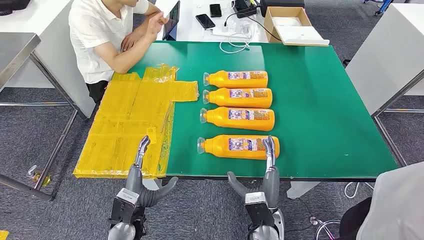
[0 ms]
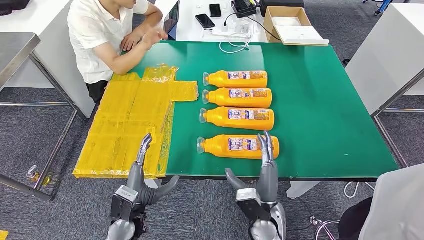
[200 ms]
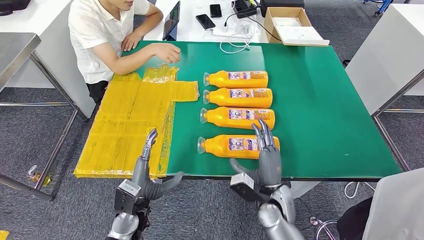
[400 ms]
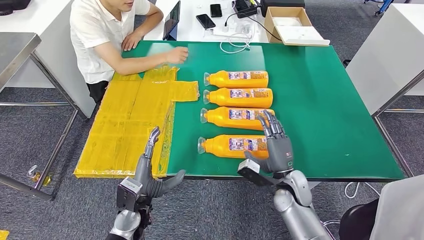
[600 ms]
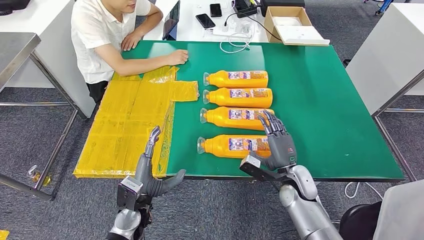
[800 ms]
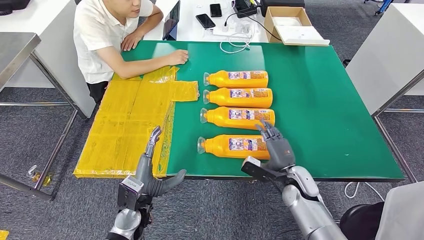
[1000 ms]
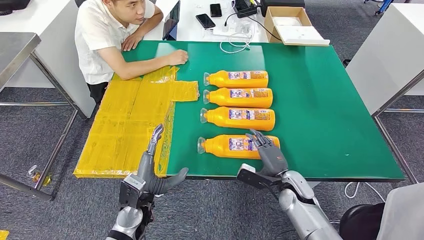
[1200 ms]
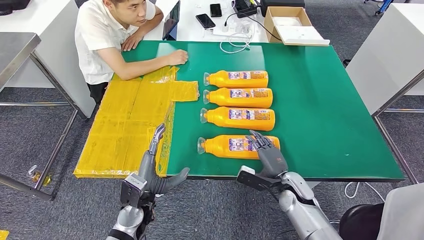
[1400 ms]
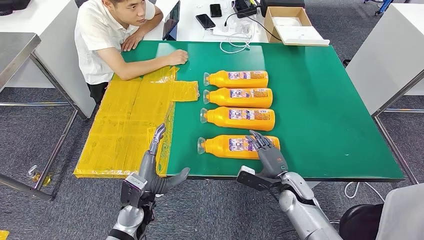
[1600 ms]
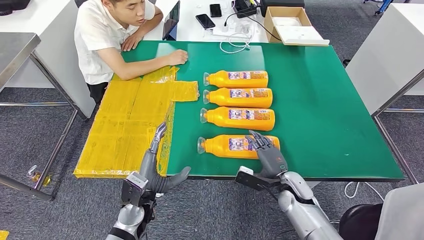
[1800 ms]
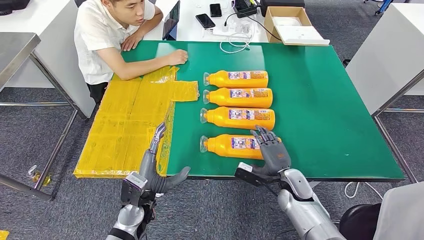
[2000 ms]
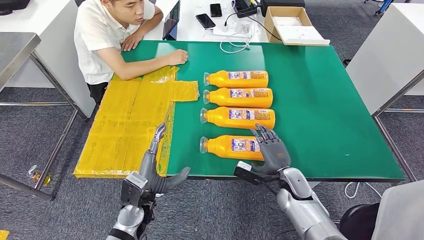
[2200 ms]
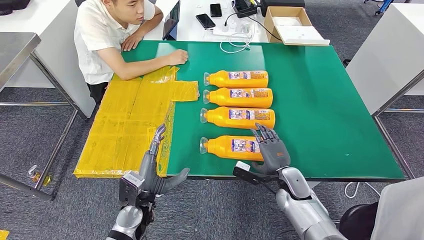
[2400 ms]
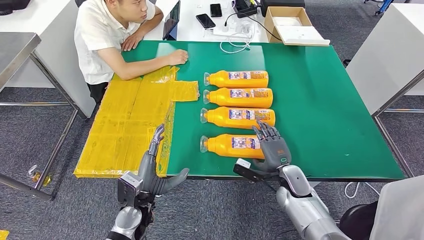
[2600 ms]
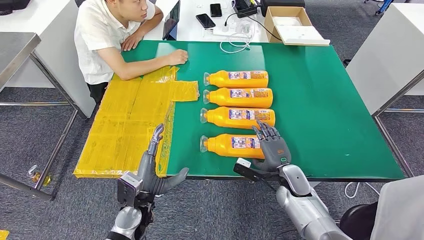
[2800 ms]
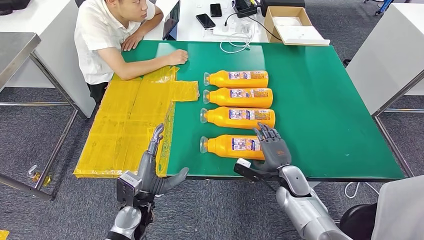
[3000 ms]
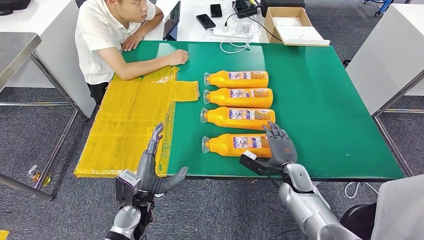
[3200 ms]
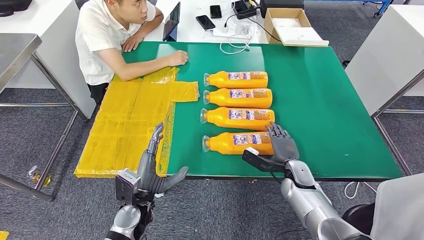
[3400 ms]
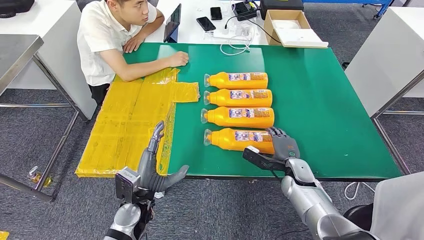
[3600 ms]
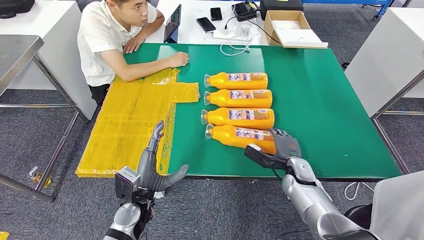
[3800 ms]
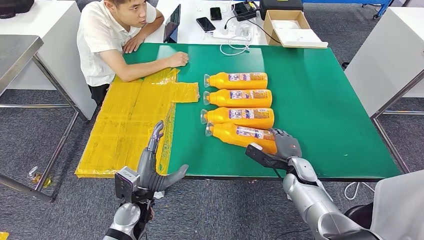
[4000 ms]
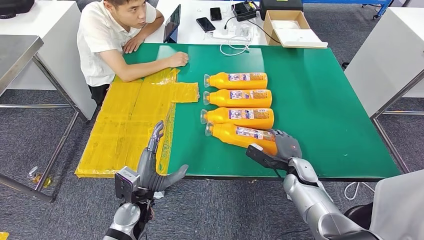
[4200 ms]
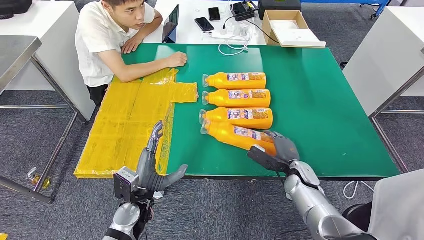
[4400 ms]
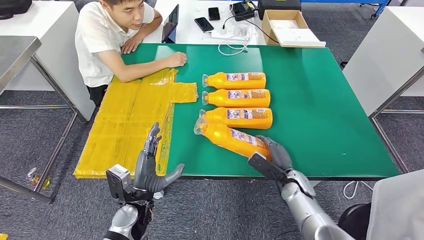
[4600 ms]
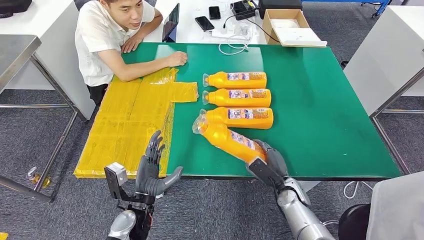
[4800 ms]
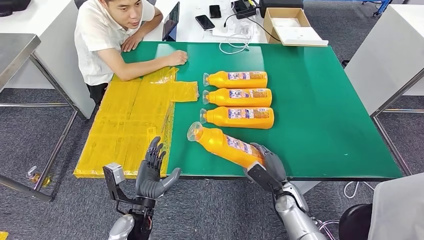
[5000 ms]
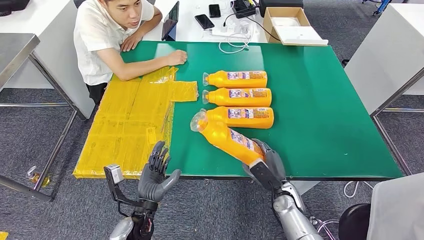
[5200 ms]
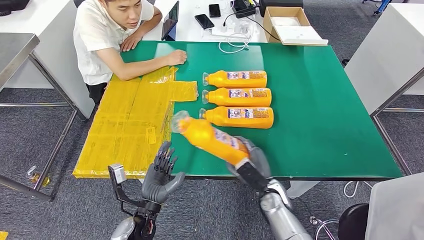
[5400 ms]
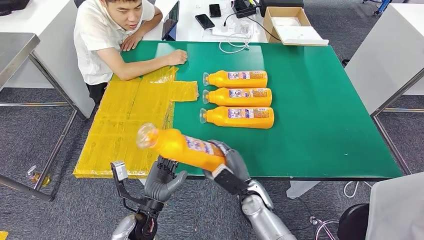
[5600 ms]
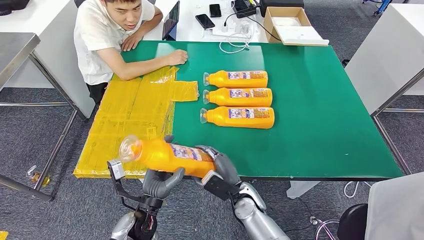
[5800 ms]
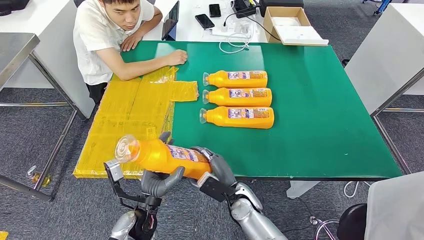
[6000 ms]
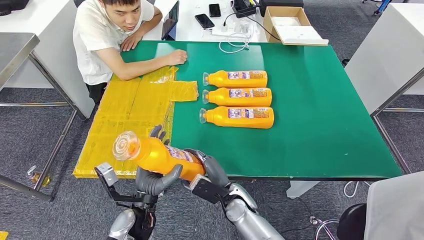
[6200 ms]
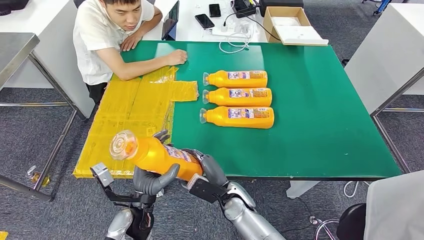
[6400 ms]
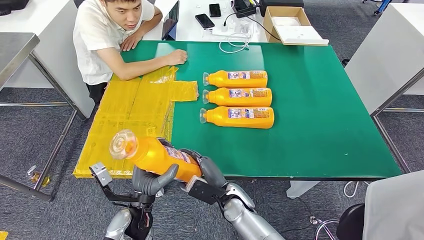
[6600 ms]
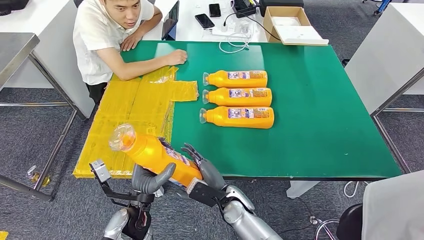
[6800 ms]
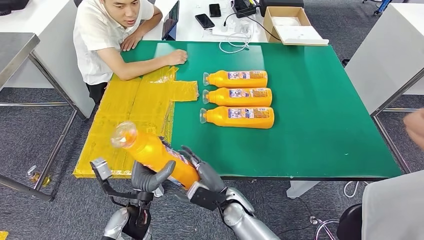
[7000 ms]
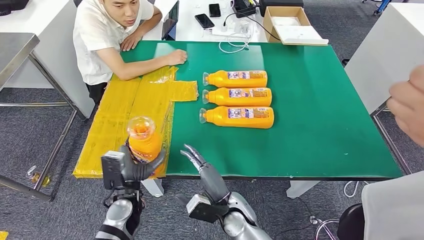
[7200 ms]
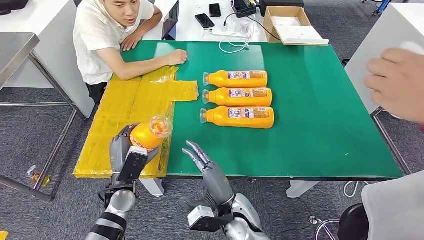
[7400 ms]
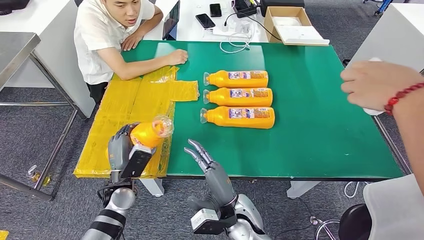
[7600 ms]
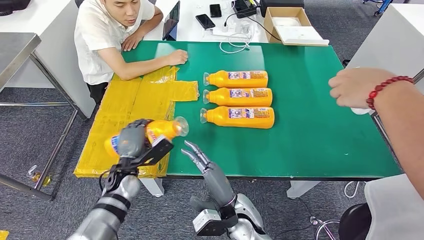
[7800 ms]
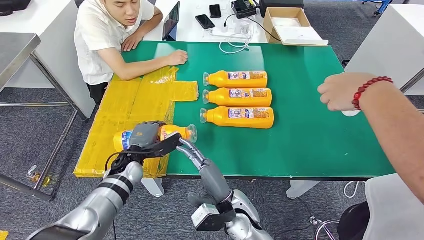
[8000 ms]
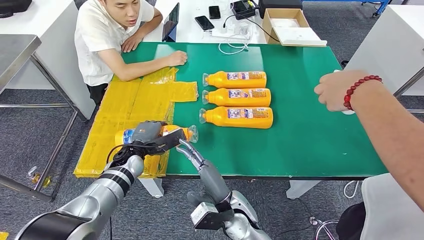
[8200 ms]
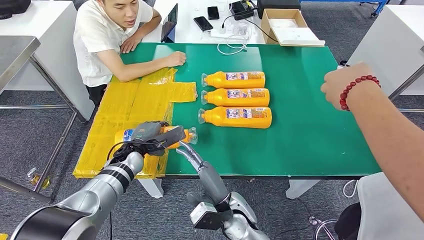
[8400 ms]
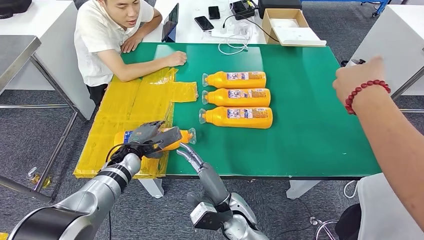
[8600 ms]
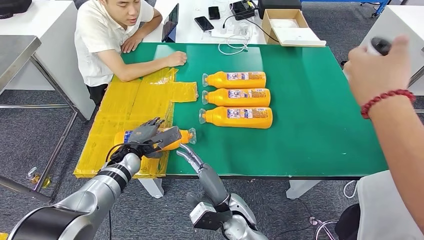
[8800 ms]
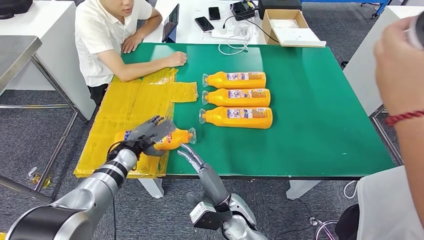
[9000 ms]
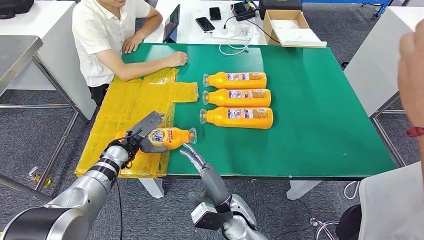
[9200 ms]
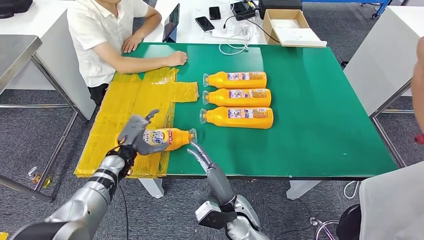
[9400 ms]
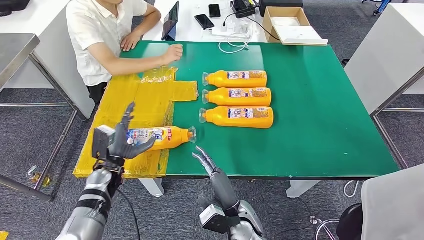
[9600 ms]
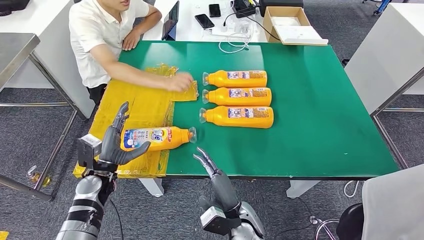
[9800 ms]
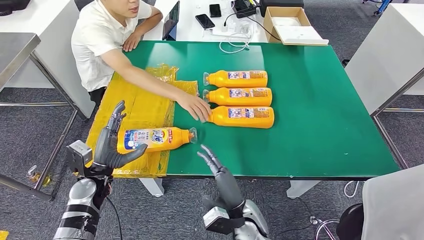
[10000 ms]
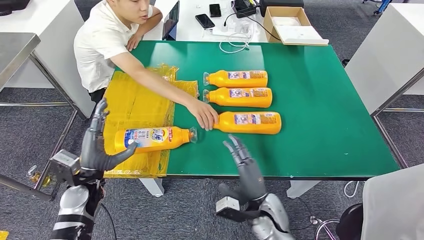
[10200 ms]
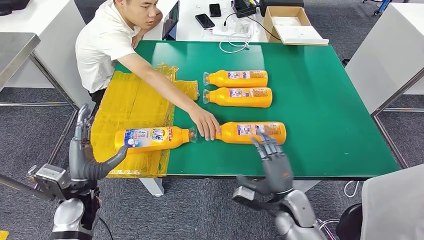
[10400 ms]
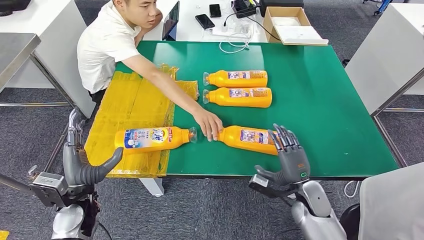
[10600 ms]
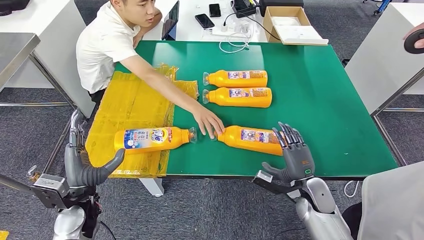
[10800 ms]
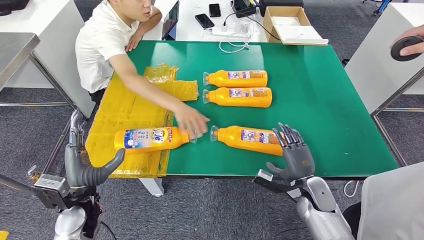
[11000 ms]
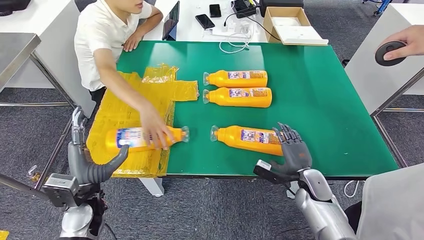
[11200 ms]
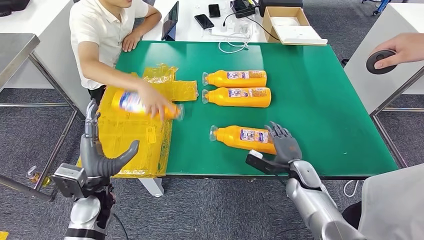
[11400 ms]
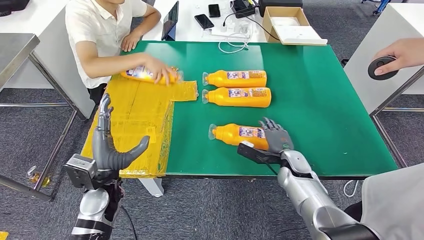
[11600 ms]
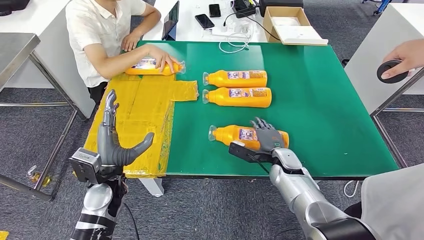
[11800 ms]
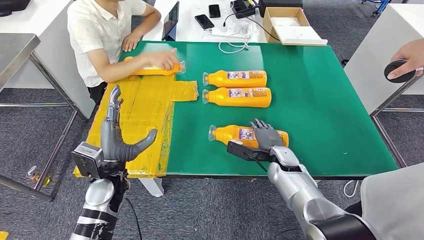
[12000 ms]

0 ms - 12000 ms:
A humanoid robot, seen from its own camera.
Step, 0 ms - 5000 ms: Take the fast-moving consumer goods bottle from the table.
Step, 5200 ms - 9800 ms: Flip the fast-moving consumer goods bottle to the front side.
6000 ms - 7600 ms: The right hand ends up approximately 5 cm from where it was. The left hand moves forward and to the left, about 10 cm.

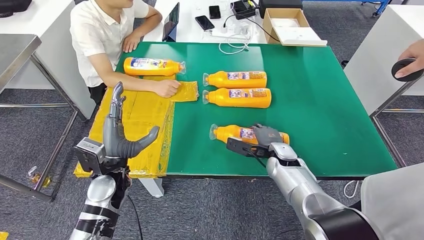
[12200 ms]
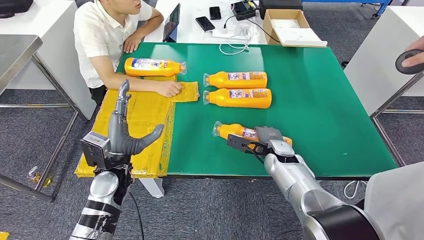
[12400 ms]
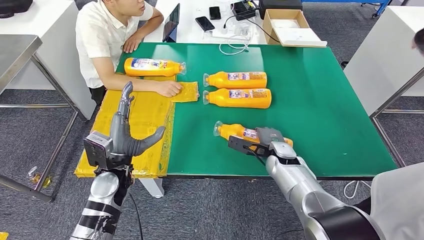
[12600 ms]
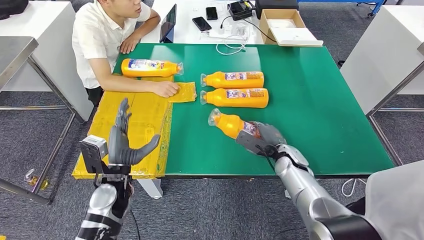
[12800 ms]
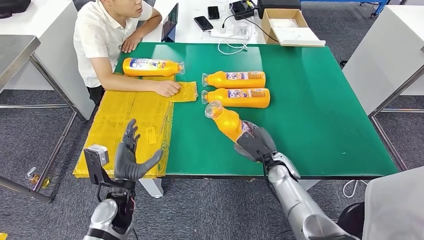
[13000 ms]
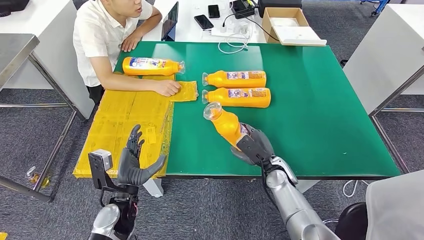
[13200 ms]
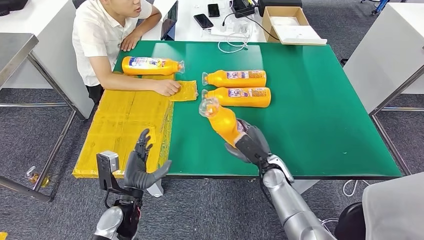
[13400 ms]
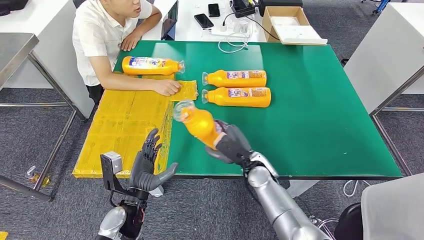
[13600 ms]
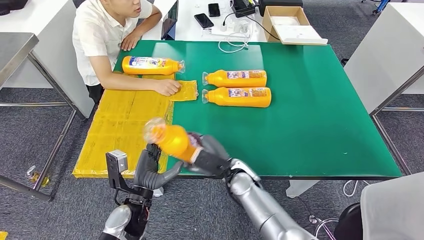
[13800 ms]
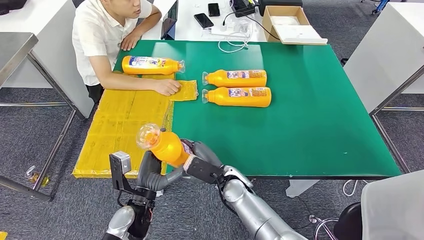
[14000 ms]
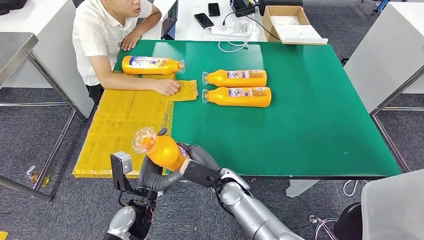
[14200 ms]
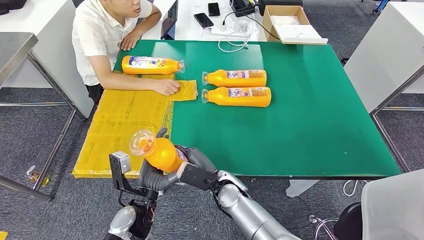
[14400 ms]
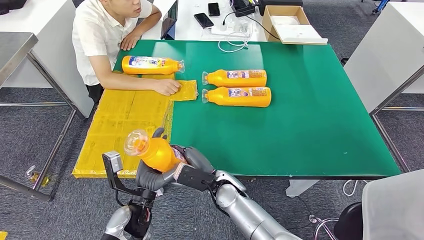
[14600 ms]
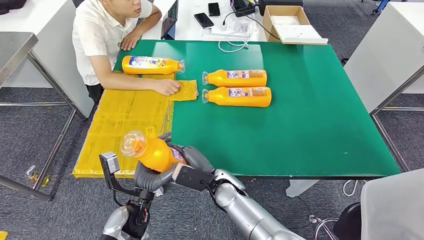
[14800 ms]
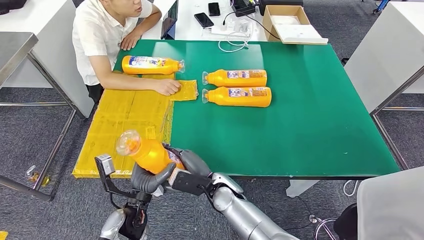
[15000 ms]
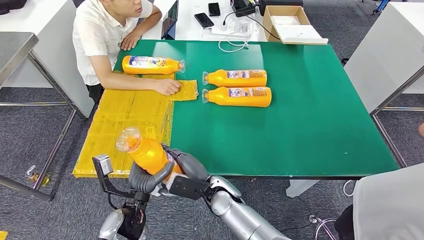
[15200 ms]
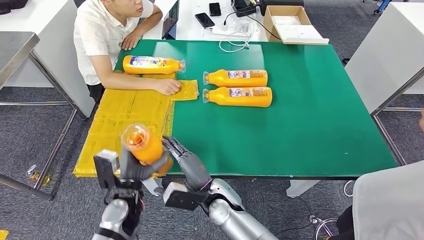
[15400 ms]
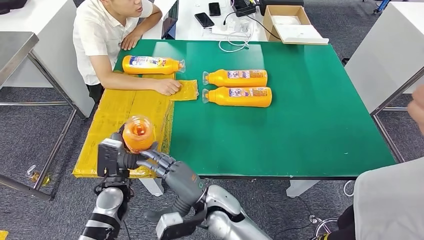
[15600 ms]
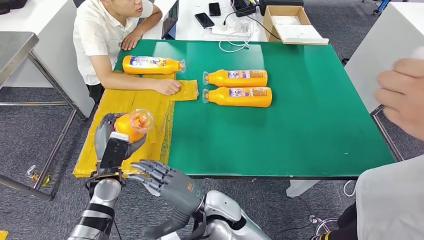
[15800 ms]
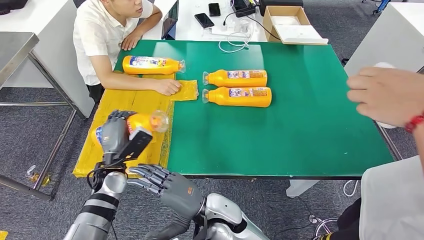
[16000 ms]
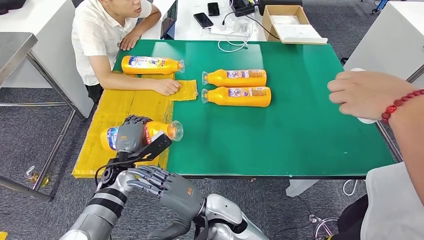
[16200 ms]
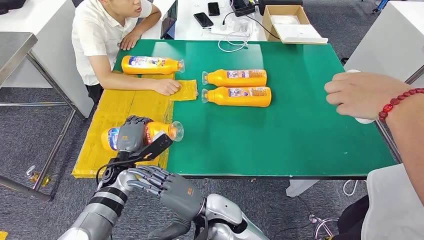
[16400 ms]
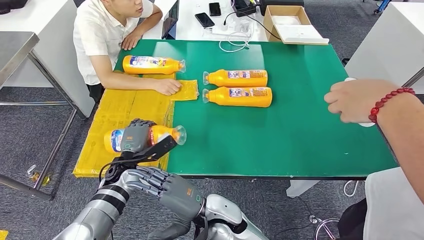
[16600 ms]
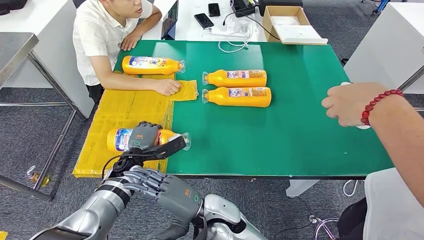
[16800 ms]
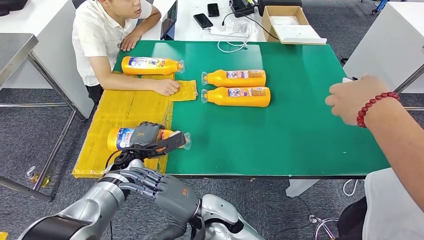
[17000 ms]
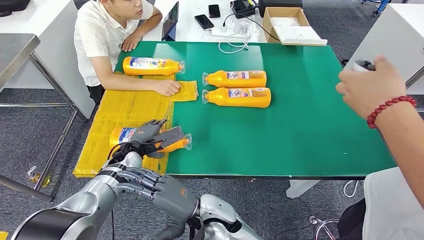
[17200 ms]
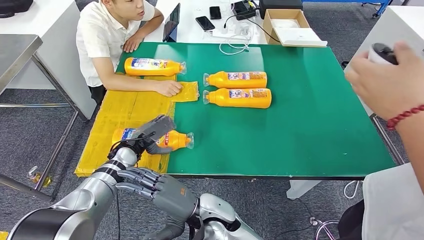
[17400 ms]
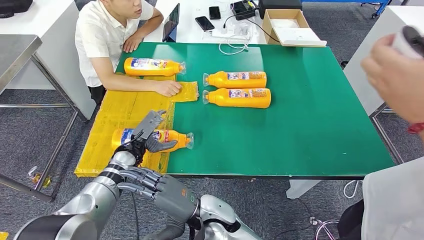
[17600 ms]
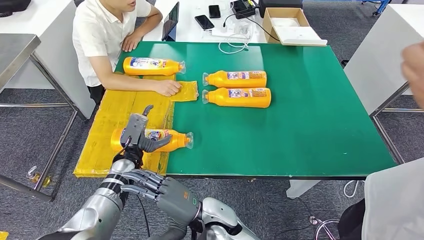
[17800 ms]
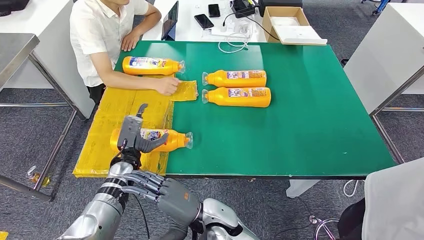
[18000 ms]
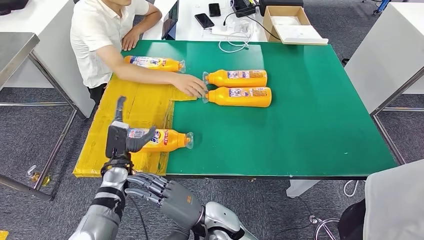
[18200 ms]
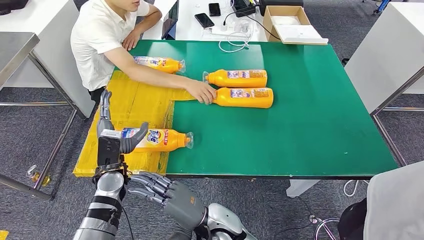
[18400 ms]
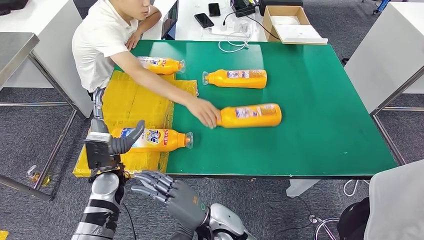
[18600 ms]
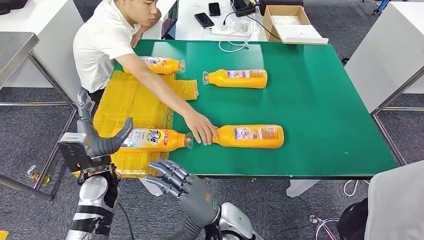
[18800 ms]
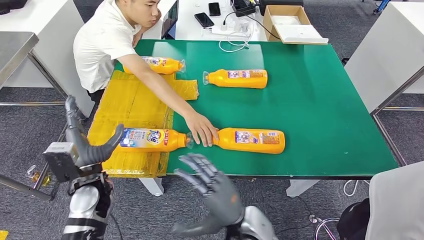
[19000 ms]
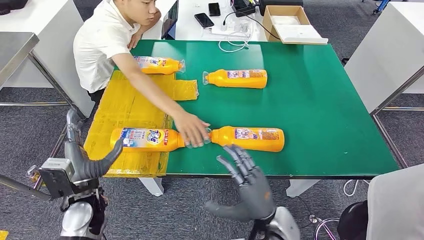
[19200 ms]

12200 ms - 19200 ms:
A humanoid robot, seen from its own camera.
Step, 14000 ms - 18200 ms: Flip the fast-moving consumer goods bottle to the front side.
13600 ms - 15000 ms: The right hand goes about 10 cm to the left and backward.
15000 ms - 16400 ms: The right hand is displaced backward by roughly 5 cm, while the left hand goes approximately 15 cm forward and to the left.
